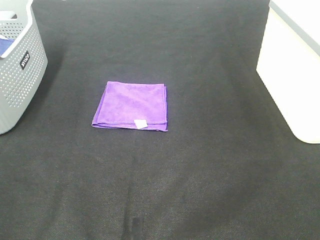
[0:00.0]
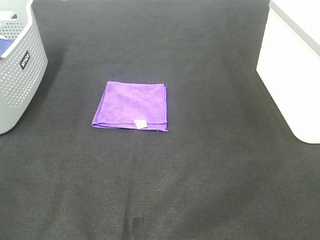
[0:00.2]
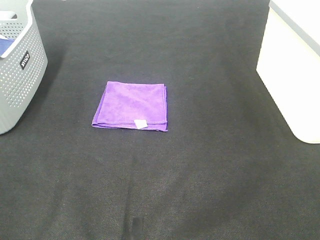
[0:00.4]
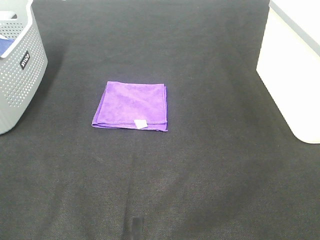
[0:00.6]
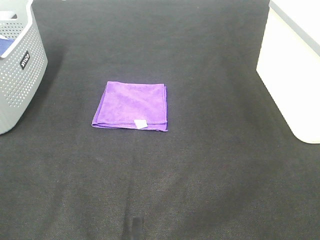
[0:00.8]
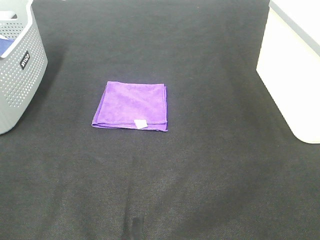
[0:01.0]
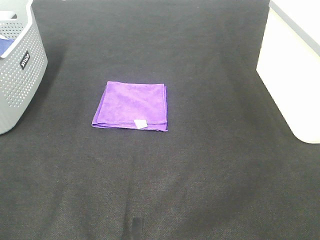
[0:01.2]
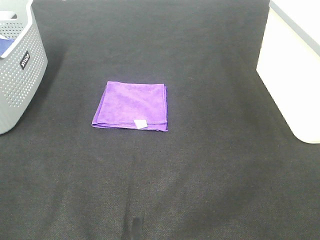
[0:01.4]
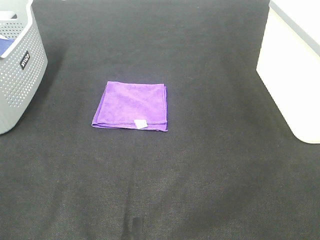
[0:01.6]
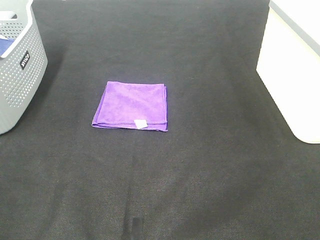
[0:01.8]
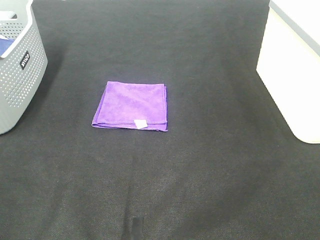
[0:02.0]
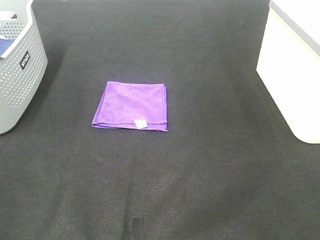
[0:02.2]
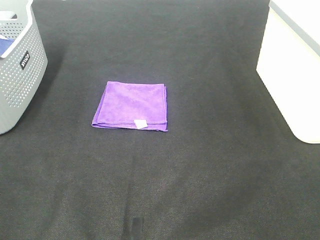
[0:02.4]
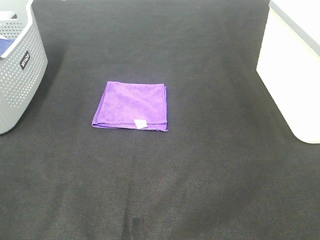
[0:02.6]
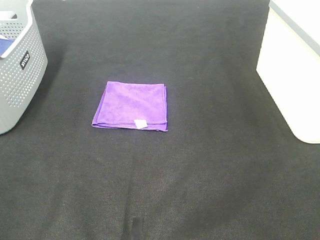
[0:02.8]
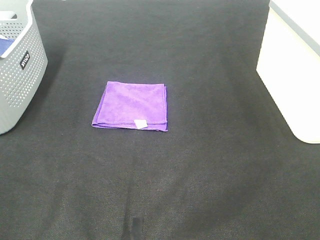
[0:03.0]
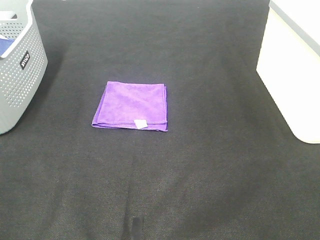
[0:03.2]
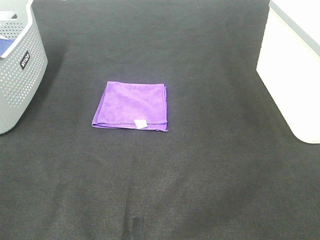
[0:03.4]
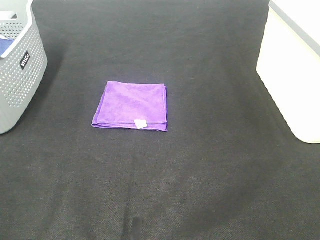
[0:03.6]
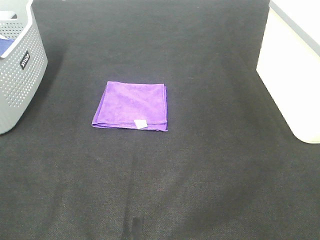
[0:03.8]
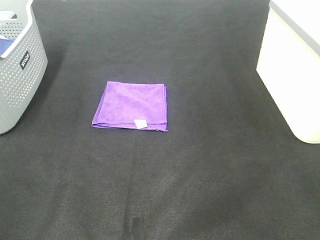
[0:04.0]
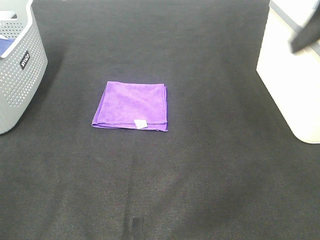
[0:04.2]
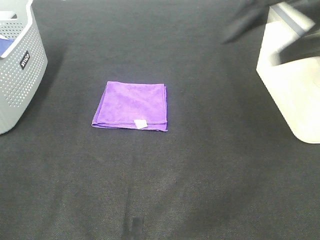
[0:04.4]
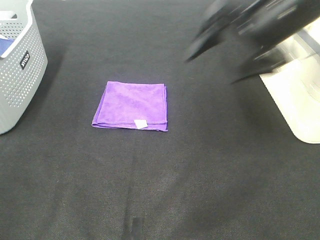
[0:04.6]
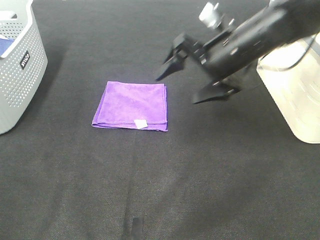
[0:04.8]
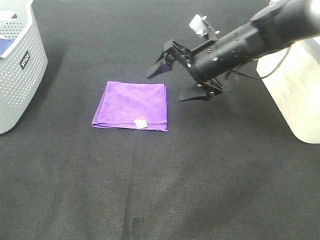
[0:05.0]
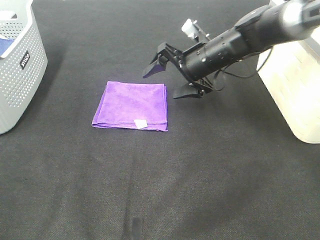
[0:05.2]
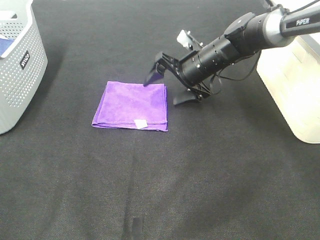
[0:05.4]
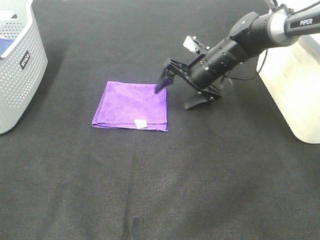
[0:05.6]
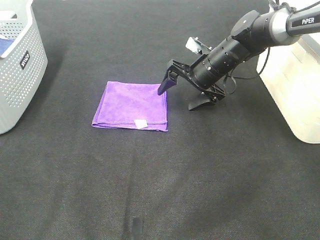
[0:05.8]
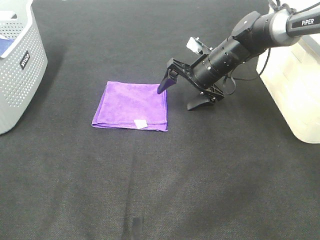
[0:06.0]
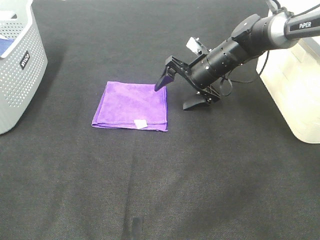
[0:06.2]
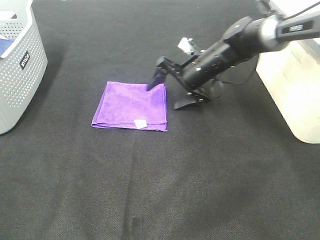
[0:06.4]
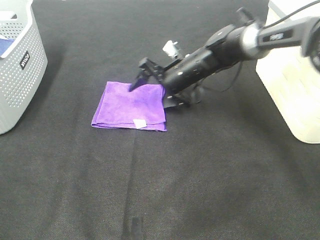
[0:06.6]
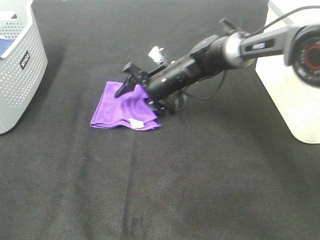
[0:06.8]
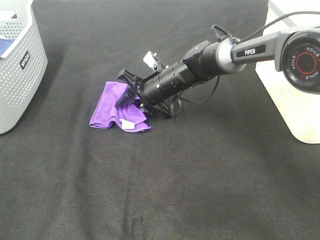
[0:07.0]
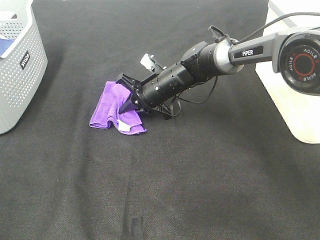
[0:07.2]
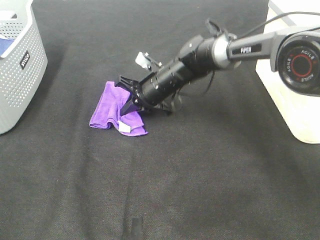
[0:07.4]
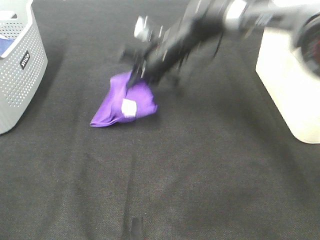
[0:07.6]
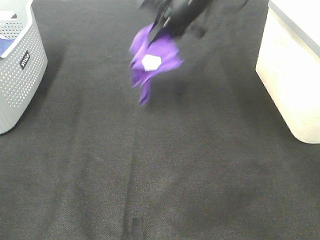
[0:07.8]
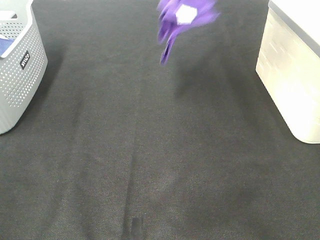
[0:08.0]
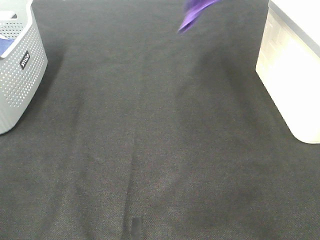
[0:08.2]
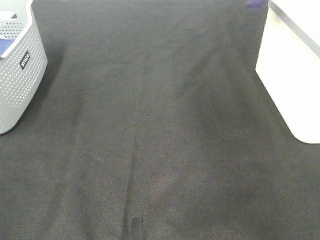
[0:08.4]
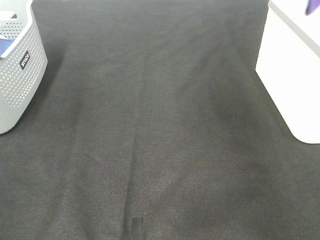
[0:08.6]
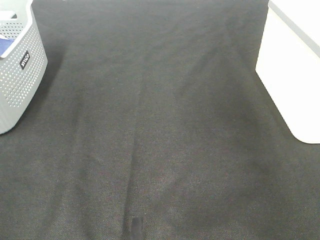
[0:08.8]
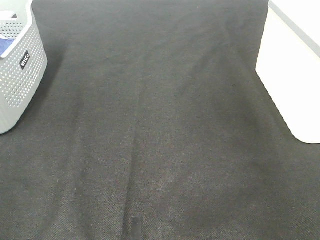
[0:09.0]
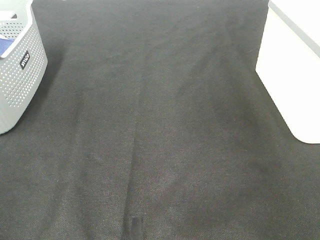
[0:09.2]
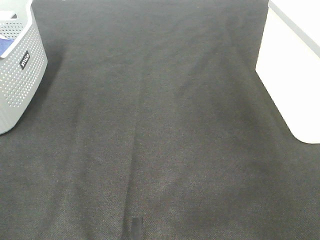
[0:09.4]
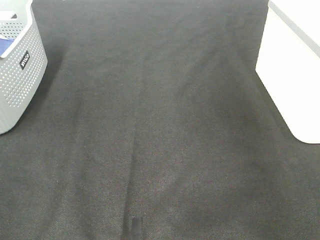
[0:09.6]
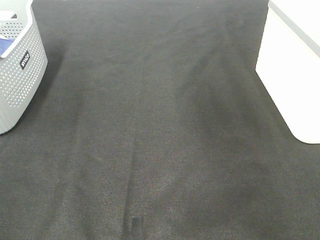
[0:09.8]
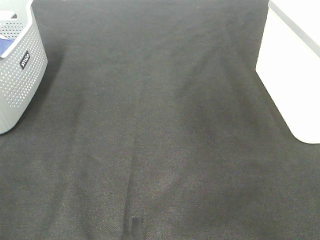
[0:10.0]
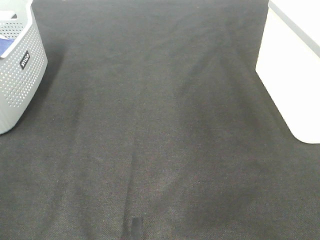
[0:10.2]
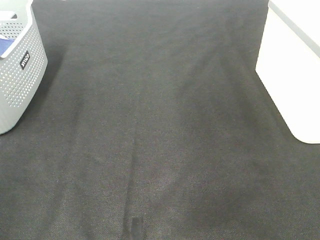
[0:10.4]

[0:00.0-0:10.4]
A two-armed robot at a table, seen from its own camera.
Step, 0.0 to 7.0 s: Right hand: grab the folded purple towel.
Step, 7.2 to 9.2 s: Right hand: place the purple towel in right basket.
0.0 to 3.0 s: Both grippers stay about where they are.
3.0 to 4.4 s: The right gripper is displaced forward by roughly 30 cm.
4.4 to 6.0 s: The right gripper is displaced downward and forward by roughly 25 cm.
6.0 to 7.4 s: The right gripper moves to the left, some 10 cm, and closes its fingers.
7.4 to 9.0 s: The right gripper travels to the right and upward by about 50 cm.

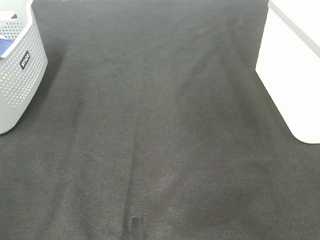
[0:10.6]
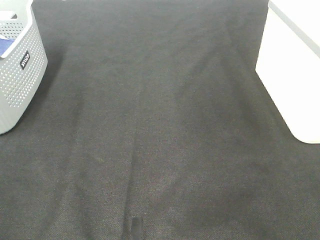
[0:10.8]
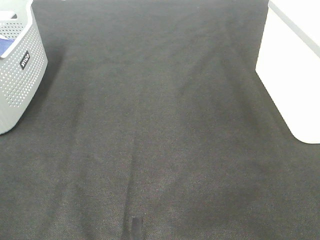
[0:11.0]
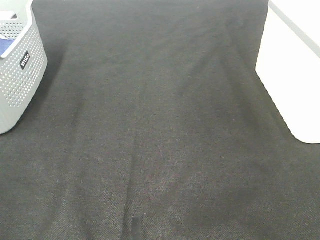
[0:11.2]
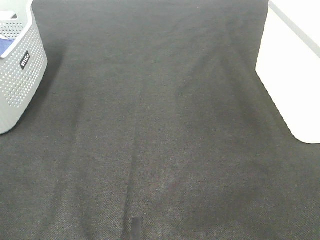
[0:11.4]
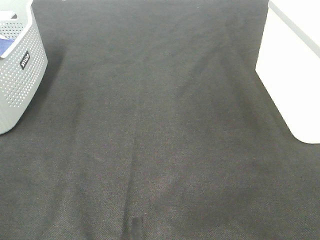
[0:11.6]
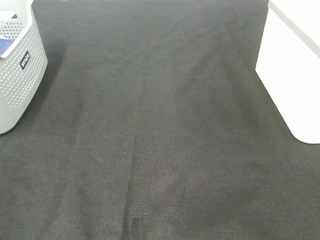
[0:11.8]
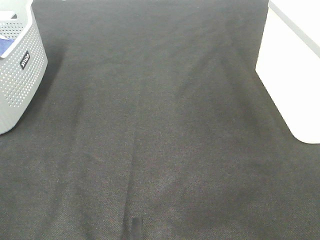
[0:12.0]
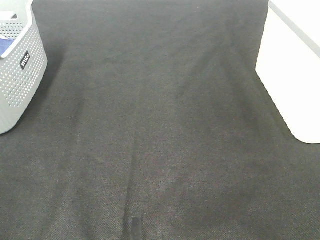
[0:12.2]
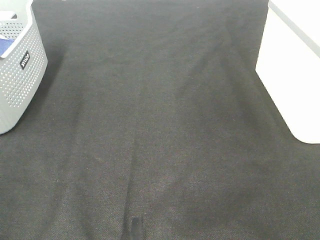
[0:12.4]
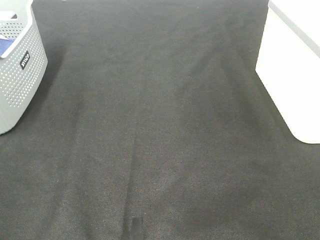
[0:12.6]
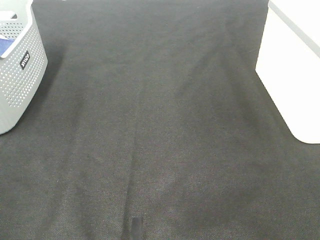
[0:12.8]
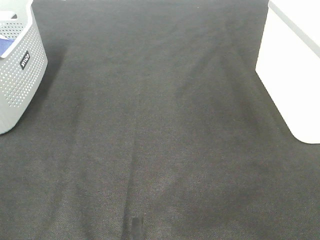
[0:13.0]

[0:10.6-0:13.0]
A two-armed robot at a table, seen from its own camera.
11.8 to 13.0 s: The two grippers keep their place.

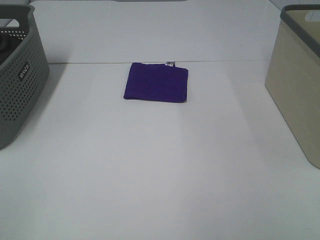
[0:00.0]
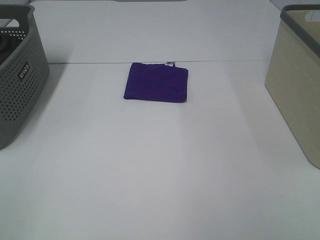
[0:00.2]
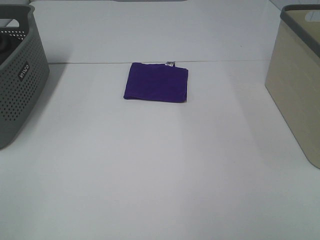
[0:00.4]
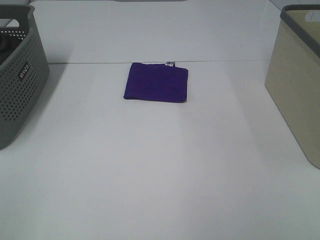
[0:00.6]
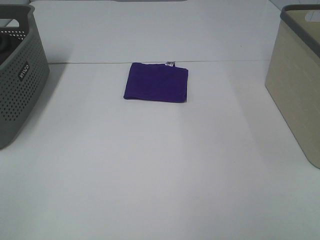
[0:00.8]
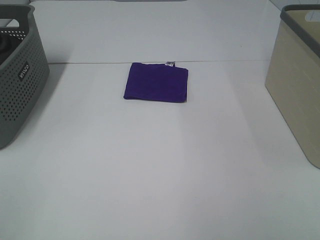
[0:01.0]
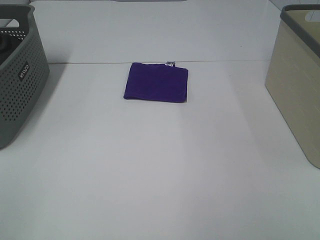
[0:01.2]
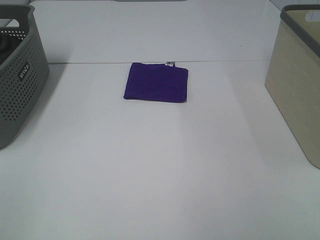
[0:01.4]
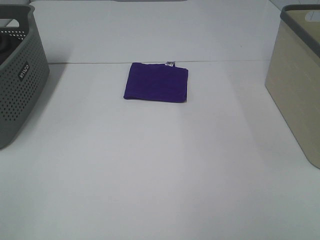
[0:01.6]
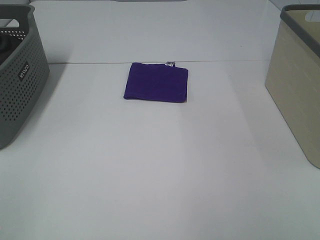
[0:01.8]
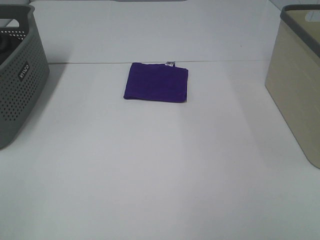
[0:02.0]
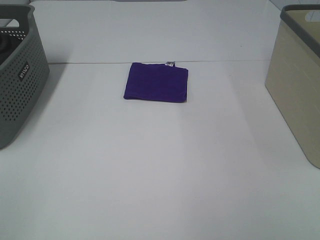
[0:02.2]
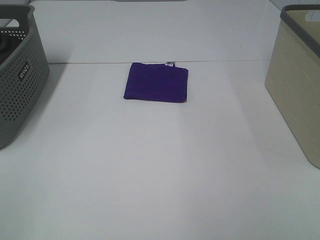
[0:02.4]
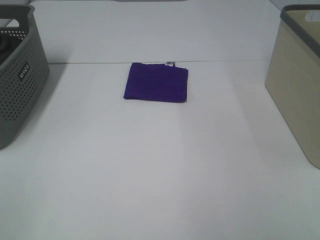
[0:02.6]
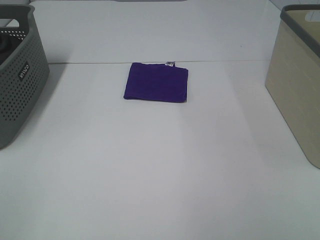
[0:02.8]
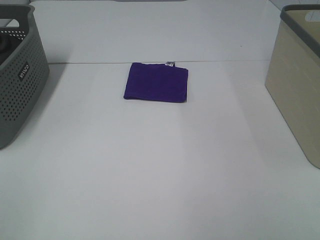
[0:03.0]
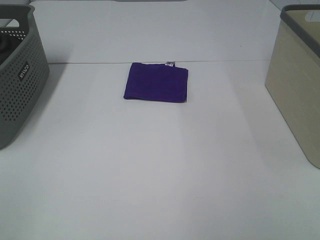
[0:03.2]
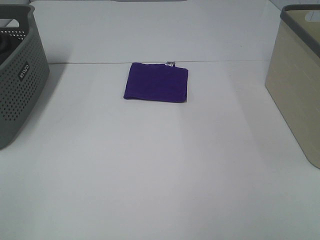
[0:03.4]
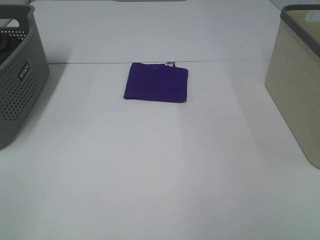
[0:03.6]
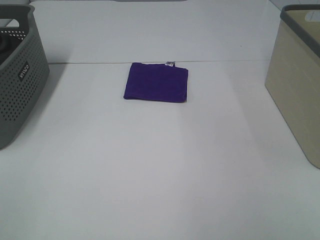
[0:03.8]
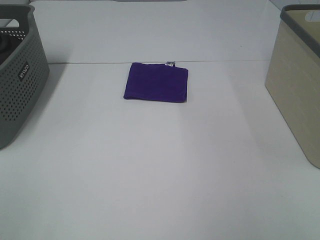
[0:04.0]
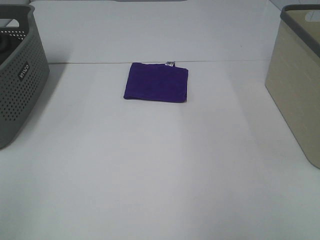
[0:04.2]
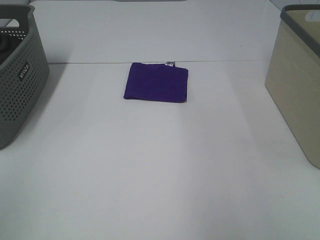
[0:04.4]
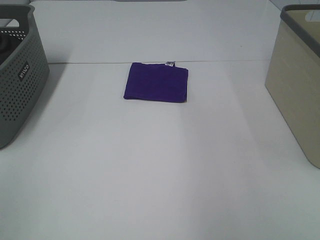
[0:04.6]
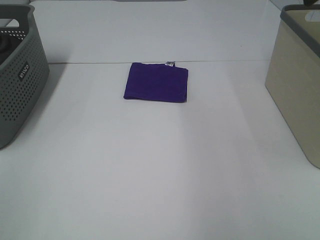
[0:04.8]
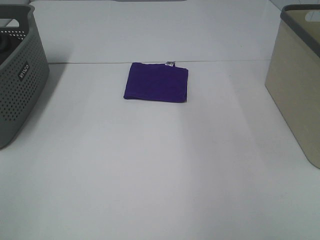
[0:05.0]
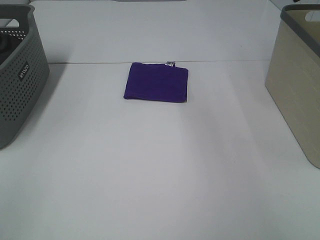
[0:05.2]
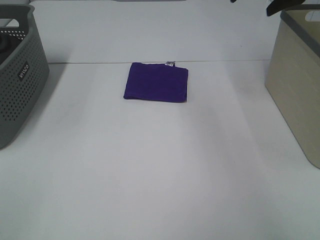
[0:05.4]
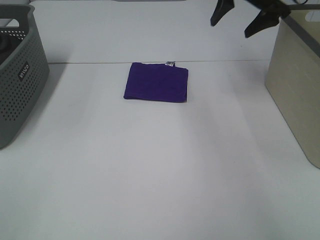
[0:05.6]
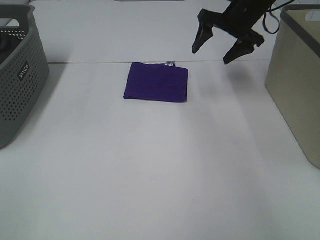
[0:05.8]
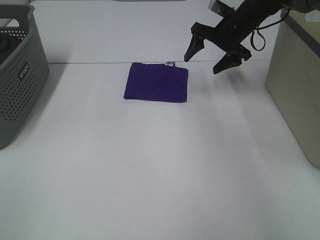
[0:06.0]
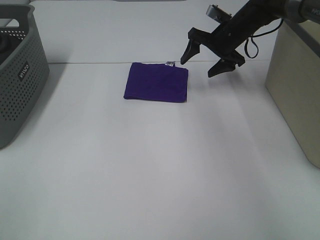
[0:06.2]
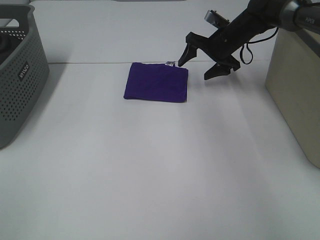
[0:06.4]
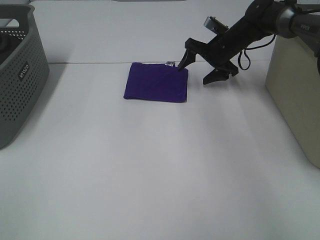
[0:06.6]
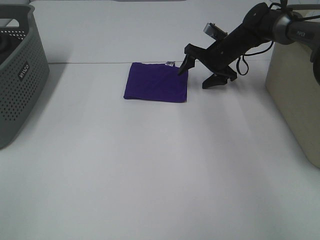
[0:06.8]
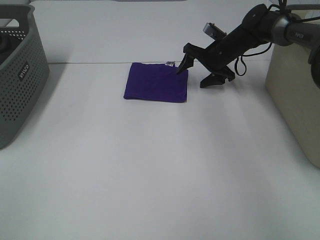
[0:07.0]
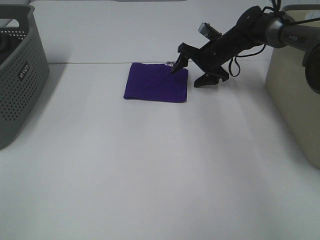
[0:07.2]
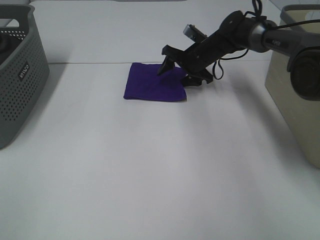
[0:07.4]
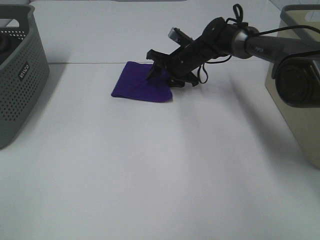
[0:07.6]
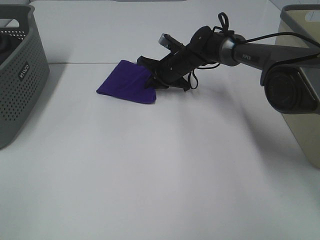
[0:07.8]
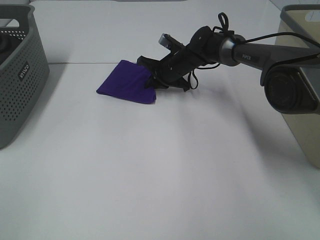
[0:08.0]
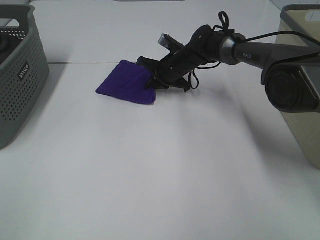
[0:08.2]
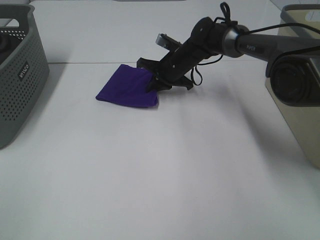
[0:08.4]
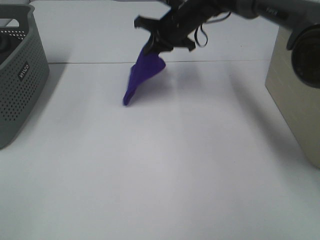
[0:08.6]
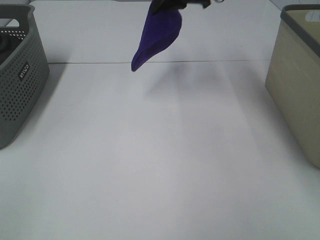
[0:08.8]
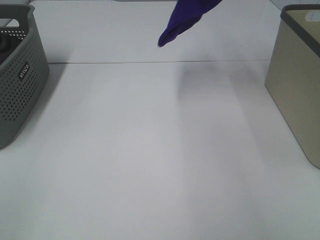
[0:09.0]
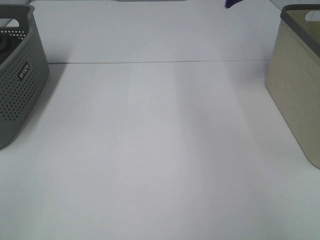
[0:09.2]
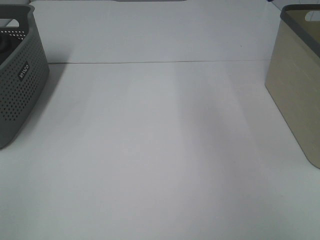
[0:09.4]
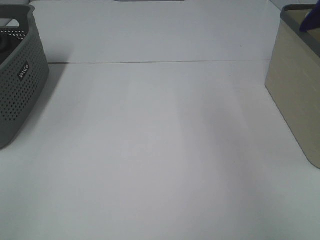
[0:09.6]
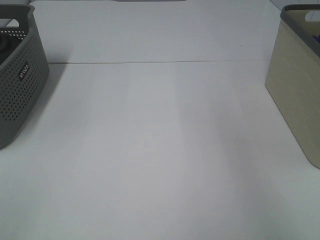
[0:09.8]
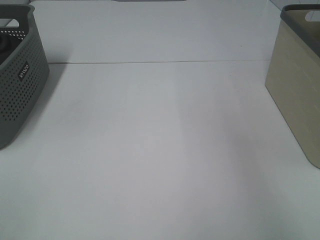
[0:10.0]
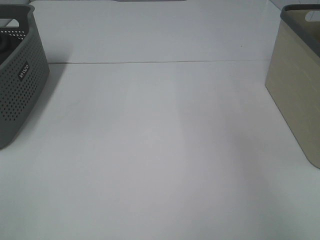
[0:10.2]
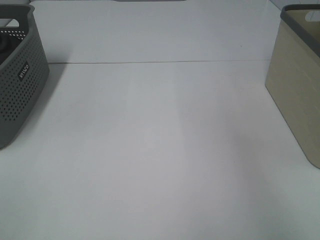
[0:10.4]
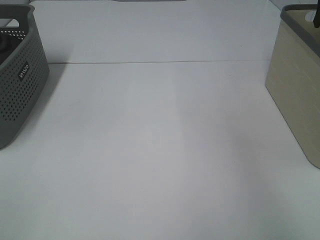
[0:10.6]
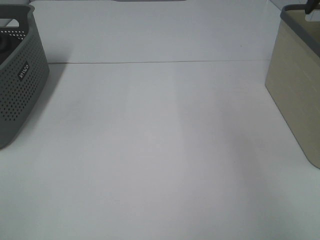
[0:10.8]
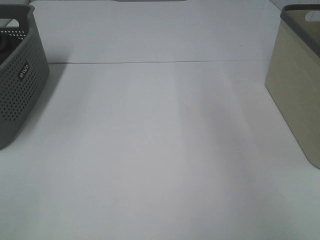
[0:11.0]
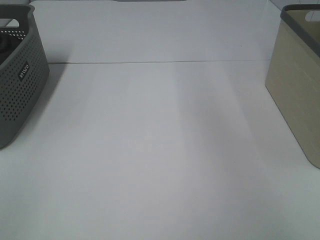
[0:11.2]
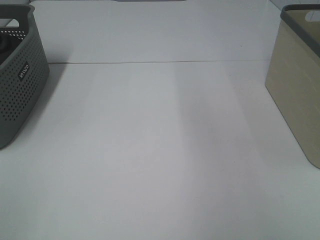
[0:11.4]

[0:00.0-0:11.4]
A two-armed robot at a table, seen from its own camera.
Step, 0.0 to 7.8 s: Right hand: grab the folded purple towel.
Step, 8.0 to 10.4 s: Right hand: place the purple towel in right basket.
0.0 to 2.8 s: The two grippers keep their place.
4.2 to 5.6 s: The right gripper shifts about 35 cm forward.
5.6 to 7.2 s: The right gripper is displaced downward by approximately 20 cm.
7.2 to 8.6 s: The right gripper moves upward and to the left, some 15 cm, and closes its fingers.
8.6 to 10.0 s: The right gripper moves to the right and upward, approximately 35 cm.
